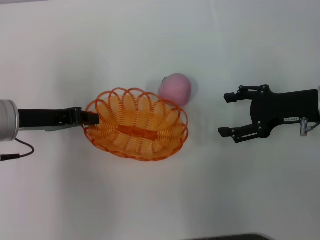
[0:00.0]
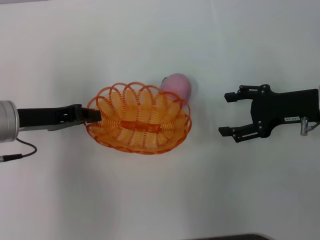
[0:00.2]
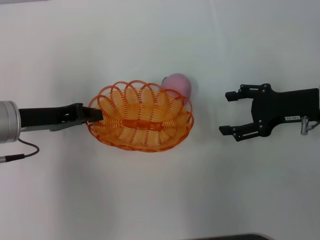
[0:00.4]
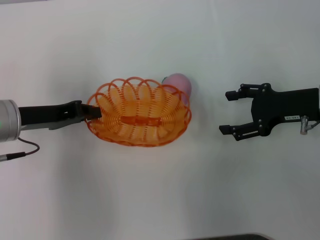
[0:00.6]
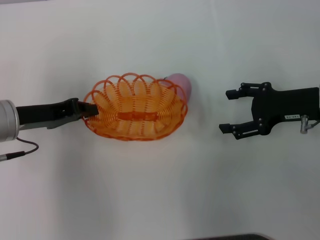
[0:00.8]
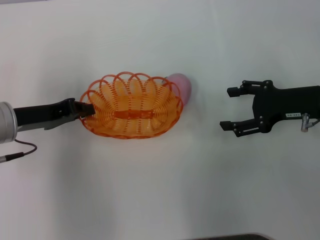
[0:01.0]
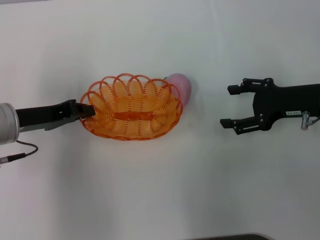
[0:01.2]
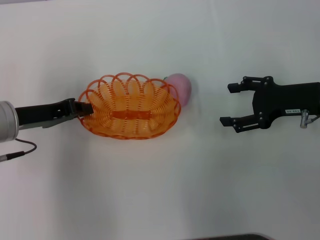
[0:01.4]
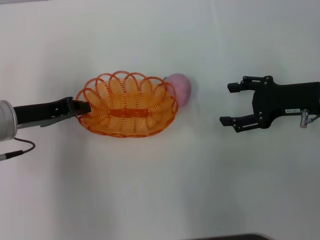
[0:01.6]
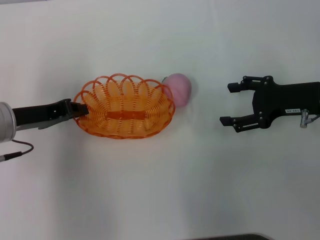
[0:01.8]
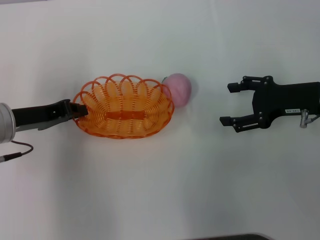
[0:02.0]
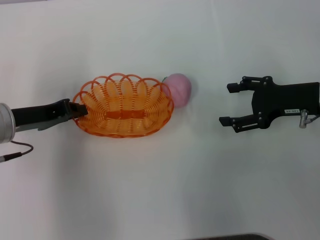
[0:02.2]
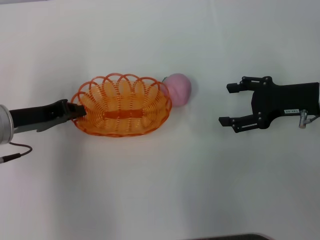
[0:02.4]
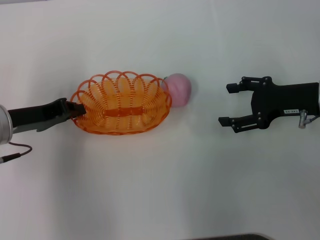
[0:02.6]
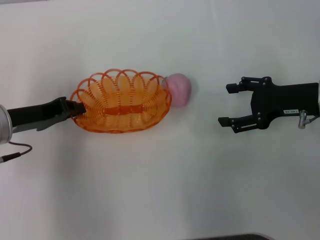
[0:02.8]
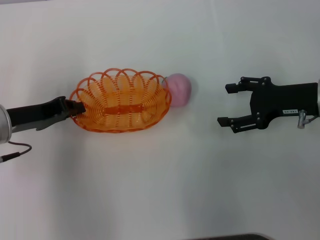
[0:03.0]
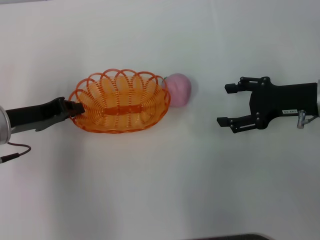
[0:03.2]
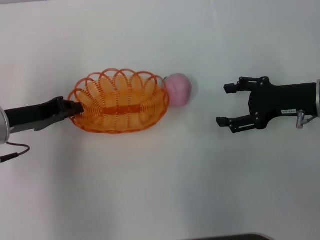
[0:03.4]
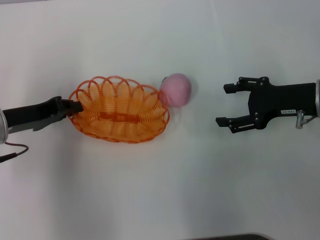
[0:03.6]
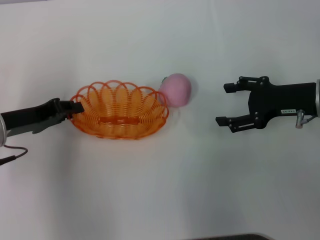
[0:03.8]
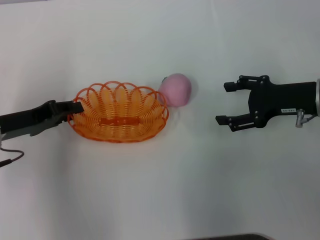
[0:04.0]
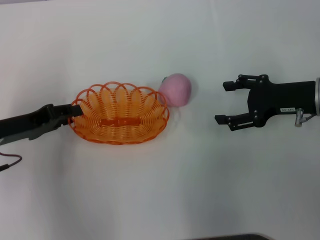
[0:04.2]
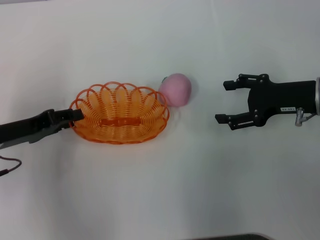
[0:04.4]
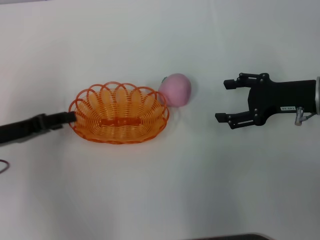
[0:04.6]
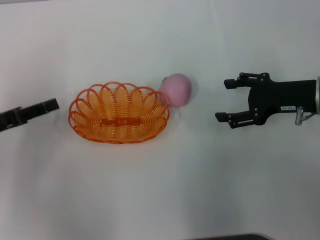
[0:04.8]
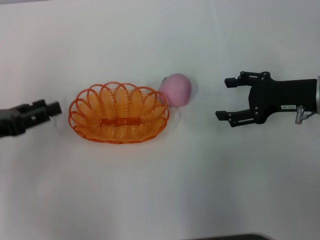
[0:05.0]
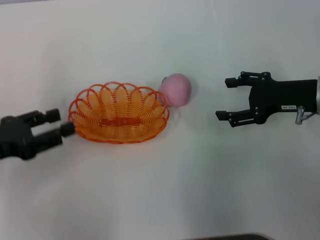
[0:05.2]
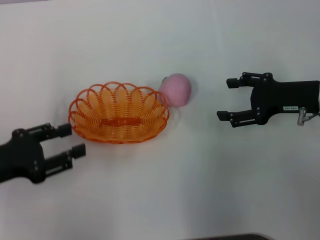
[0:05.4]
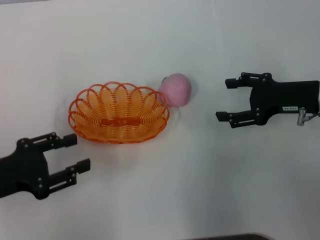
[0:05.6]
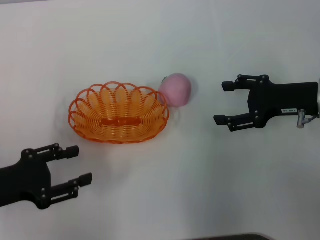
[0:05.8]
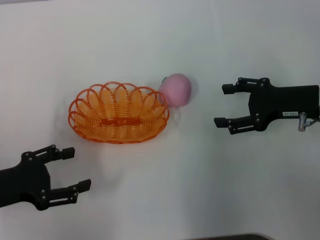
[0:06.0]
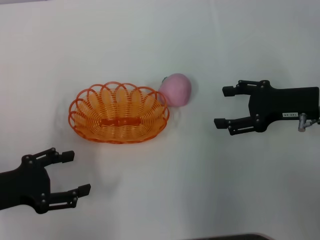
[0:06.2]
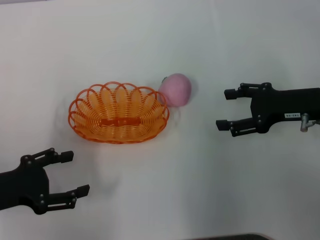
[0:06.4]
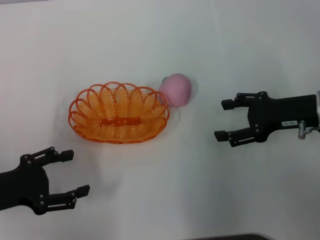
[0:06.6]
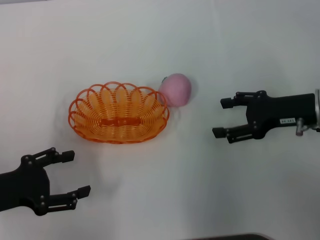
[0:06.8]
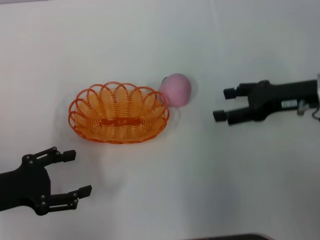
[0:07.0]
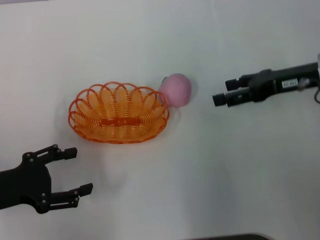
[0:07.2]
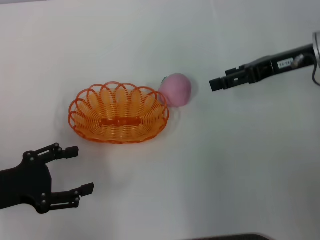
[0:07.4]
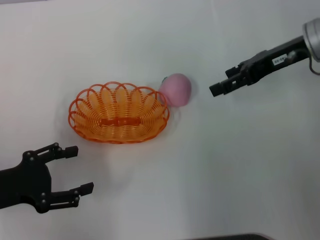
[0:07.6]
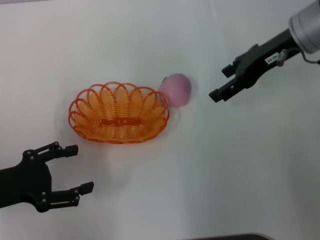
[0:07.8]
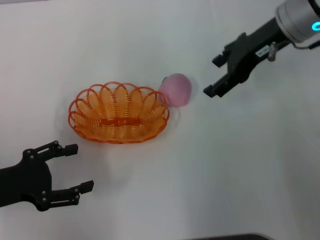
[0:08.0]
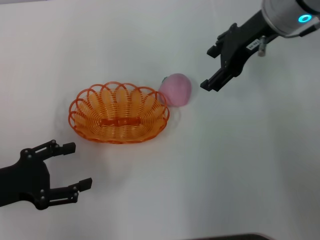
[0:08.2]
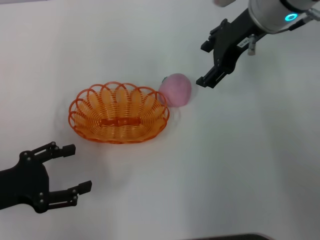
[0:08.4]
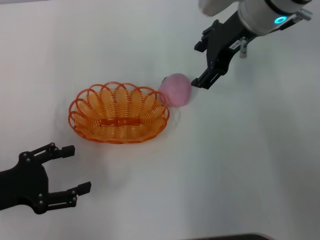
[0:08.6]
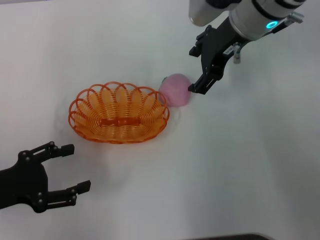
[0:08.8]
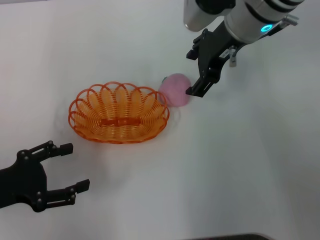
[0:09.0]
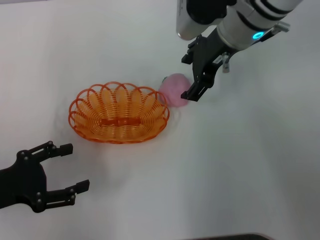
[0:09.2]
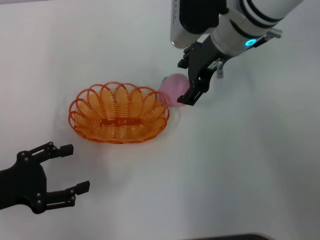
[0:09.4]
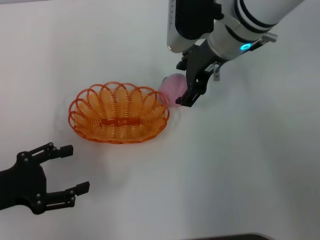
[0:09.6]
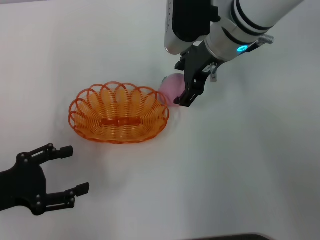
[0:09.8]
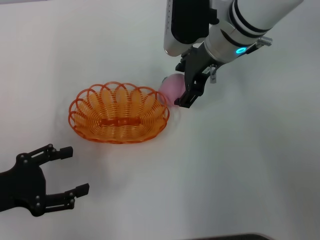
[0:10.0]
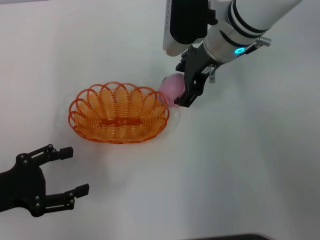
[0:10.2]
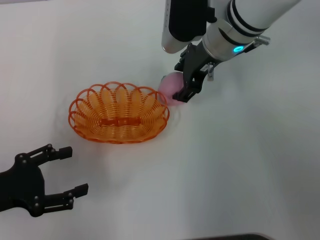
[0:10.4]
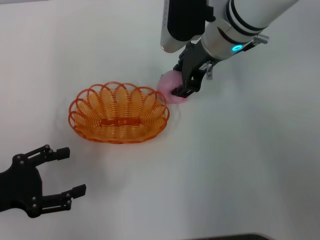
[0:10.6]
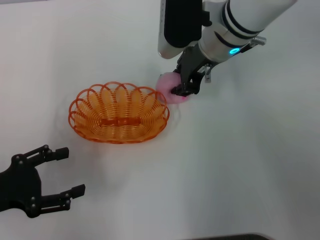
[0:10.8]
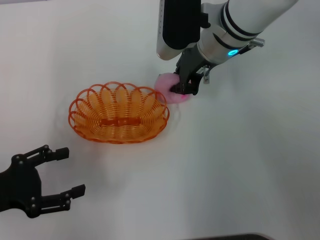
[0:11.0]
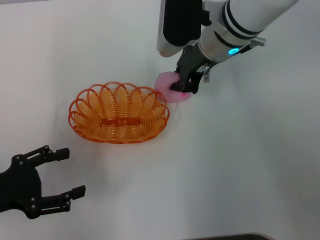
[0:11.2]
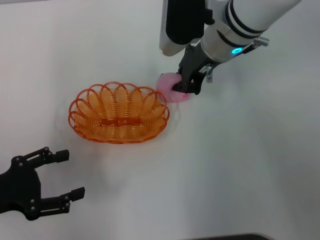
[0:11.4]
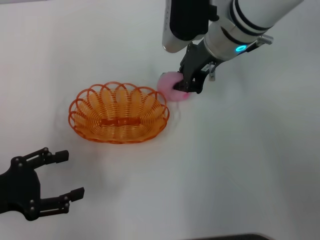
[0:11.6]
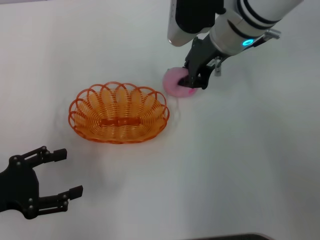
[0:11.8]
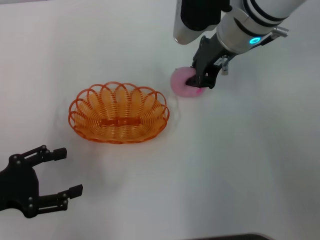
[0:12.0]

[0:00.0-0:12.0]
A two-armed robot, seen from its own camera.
Step, 0:00.0 to 0:06.0: Place the basket in the center of view with the left gripper.
0:00.0 to 0:03.0: There are only small adjustments of the grippers.
0:03.0 to 0:04.4: The left gripper opens its fingers.
0:04.4 to 0:06.0: The left gripper moves backward, approximately 5 cm, and opens up.
0:06.0 to 0:07.6: The right gripper goes roughly 10 cm upward and forward.
0:07.6 to 0:09.0: The right gripper heads to the left, covering approximately 10 cm.
0:09.0 to 0:10.4: The grippers stay close to where they were, moving slightly.
0:10.4 to 0:12.0: The right gripper closes up.

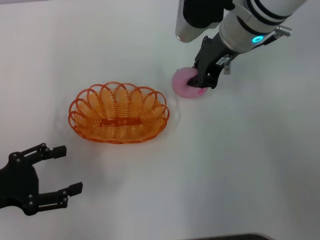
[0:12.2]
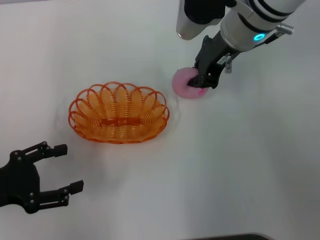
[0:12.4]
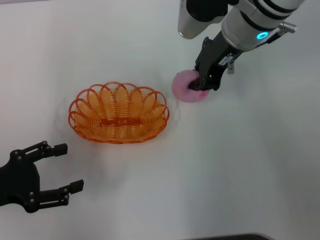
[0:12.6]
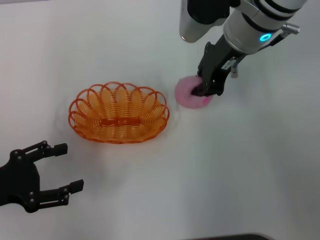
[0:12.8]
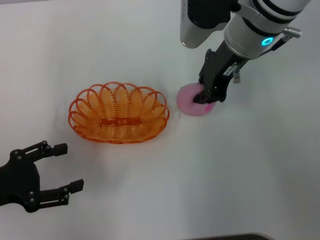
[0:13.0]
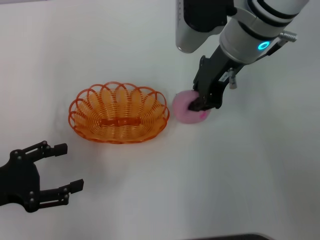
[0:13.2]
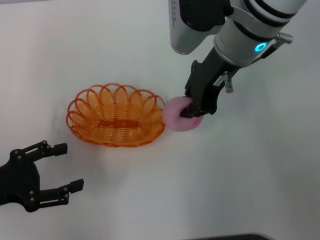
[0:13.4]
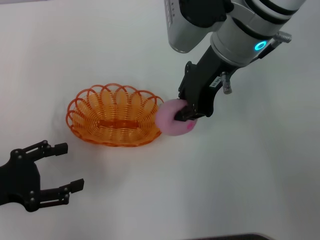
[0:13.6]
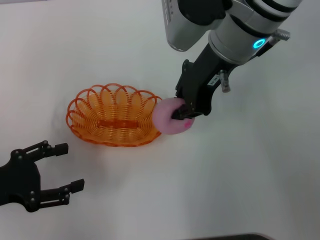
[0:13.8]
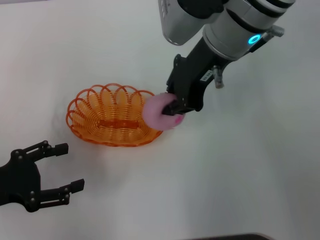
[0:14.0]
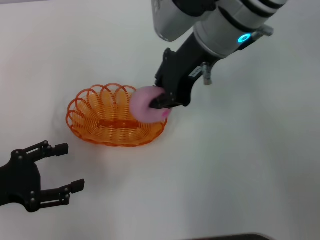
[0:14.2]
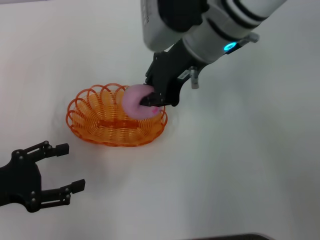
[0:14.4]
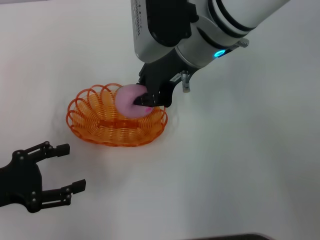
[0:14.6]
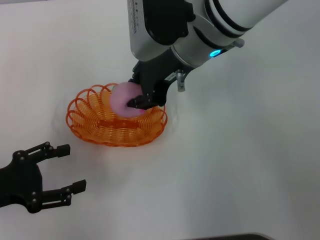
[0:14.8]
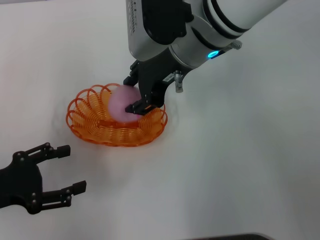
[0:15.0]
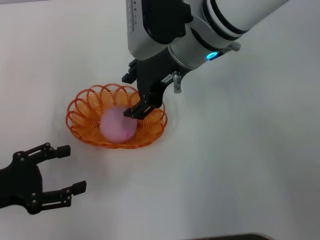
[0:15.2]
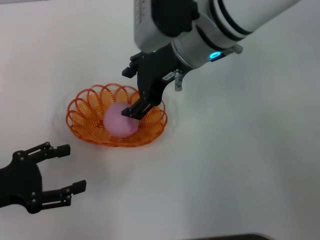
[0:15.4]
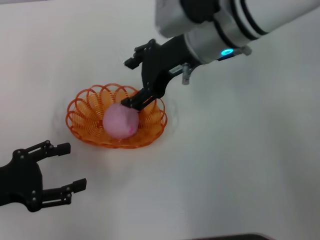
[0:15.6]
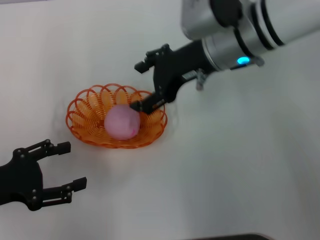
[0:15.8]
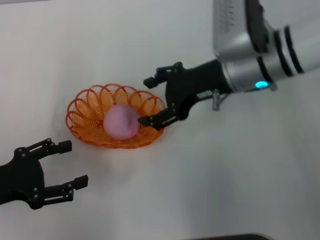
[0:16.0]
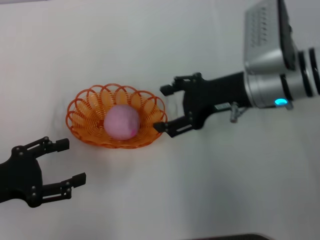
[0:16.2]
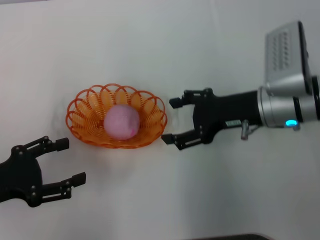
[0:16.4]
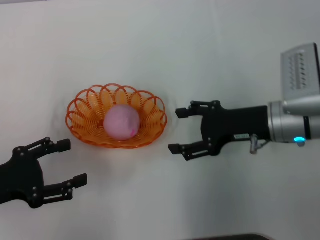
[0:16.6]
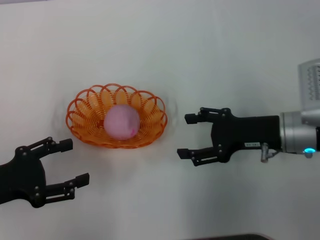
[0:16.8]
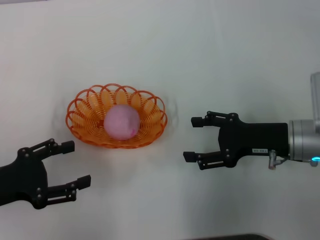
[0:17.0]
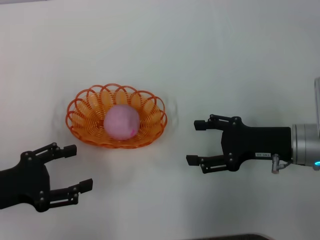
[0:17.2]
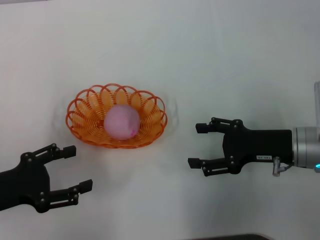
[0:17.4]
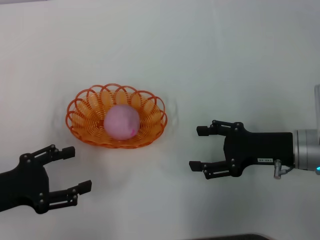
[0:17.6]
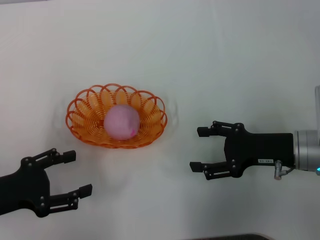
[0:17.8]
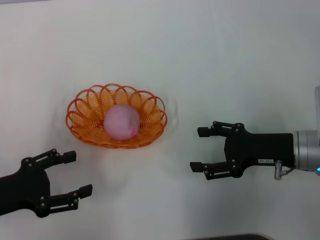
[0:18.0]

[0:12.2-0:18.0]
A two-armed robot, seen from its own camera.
Step, 0:13.6 to 0:16.0: Place the peach into the basket with the right gripper.
0:12.2 to 0:13.6: The right gripper ends up about 5 cm from where it was.
0:15.0 to 0:16.6: The right gripper heads to the right, downward and backward, covering roughly 20 cm, and opens its fingers.
0:16.6 to 0:18.0: The right gripper moves some 5 cm.
